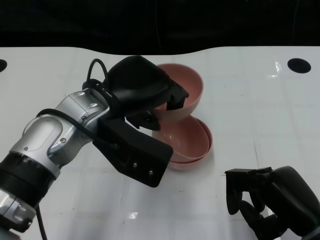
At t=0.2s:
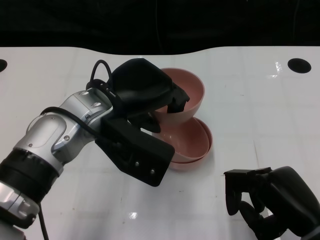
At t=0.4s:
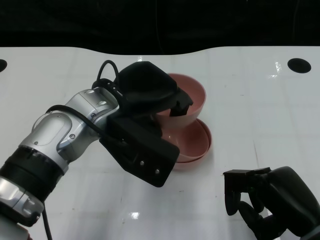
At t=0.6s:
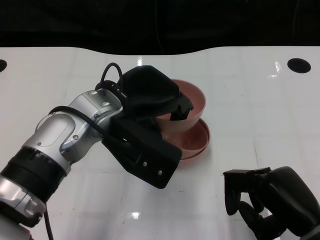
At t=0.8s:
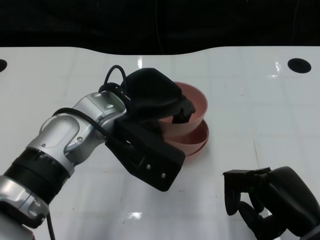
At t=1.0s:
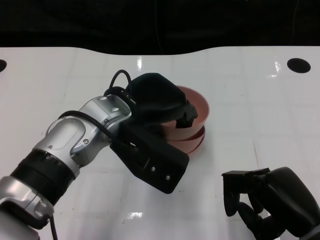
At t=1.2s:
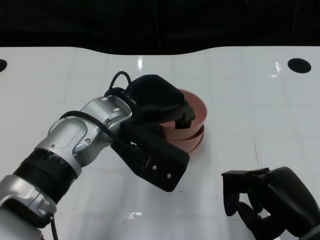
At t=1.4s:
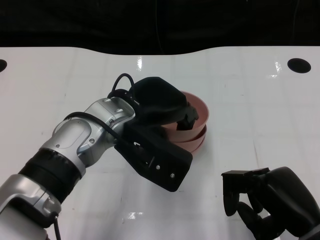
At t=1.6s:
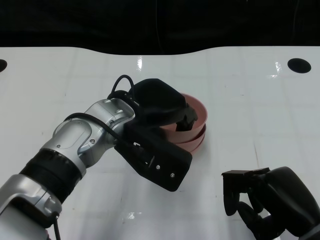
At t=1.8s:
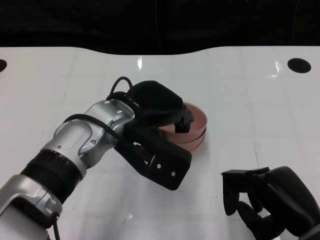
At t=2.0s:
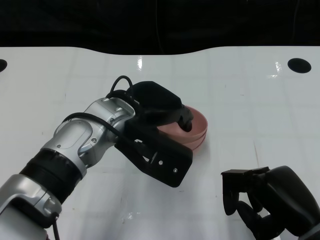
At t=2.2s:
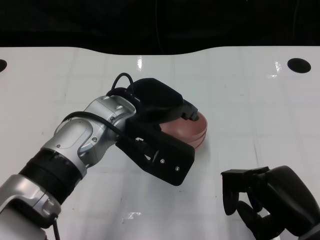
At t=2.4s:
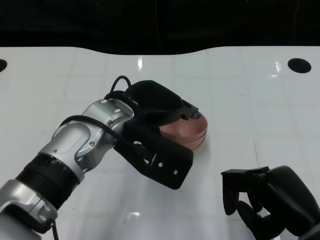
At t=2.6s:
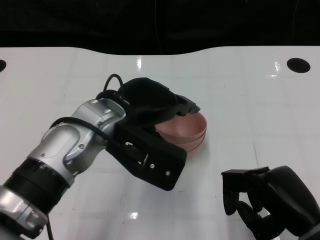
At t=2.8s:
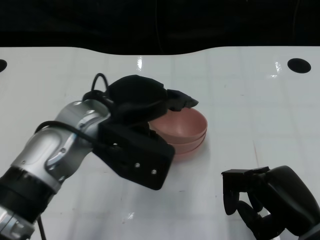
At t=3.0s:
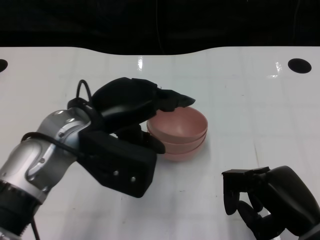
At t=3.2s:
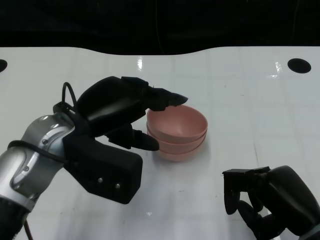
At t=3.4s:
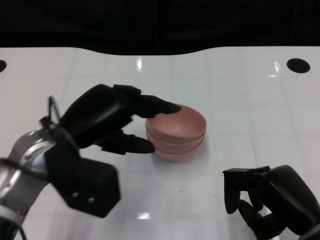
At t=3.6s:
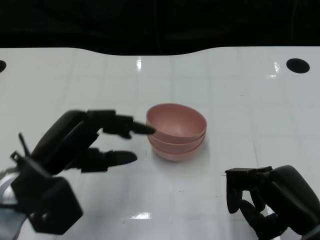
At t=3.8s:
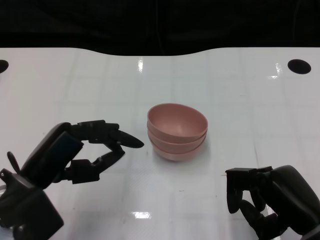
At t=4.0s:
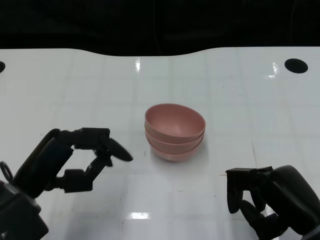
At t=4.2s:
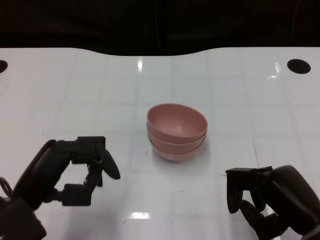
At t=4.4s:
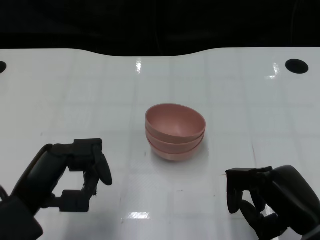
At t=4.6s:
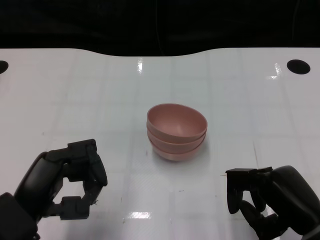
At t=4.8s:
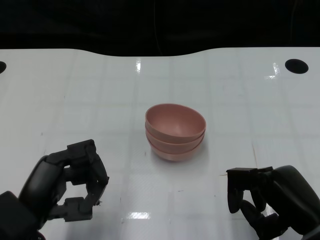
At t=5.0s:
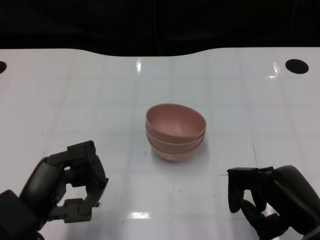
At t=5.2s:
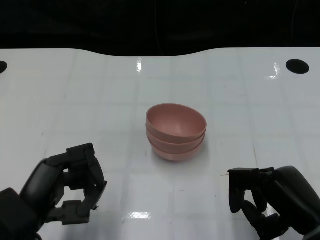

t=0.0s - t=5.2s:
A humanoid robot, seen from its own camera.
Task of the whole recording: Pick up the bowl on one side of the table and place it on top of the middle bowl, then pick up the bowl on the other side of the table and place it on top of the middle bowls.
Step, t=0.0s - t=3.2s: Place the bowl on the left onto the bowl in the middle with left gripper.
t=1.8s - t=3.4s: The left hand shifts some 10 cm to the left.
t=3.4s - t=5.2s: The left hand moves backward, downward and to the left, approximately 15 cm.

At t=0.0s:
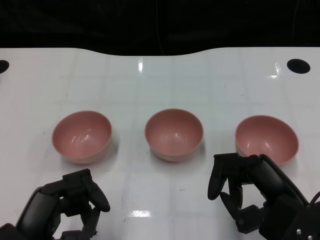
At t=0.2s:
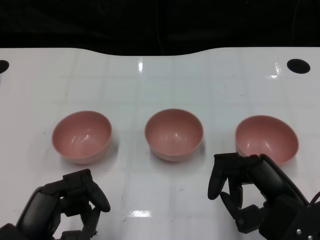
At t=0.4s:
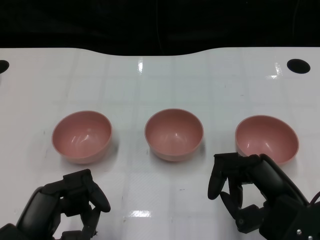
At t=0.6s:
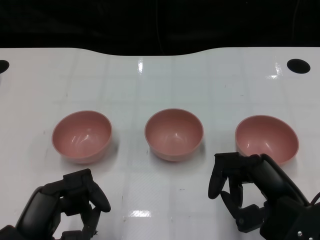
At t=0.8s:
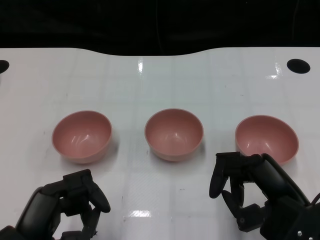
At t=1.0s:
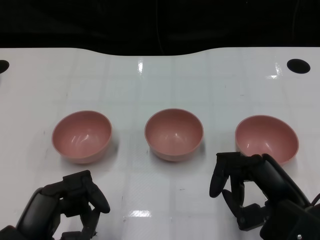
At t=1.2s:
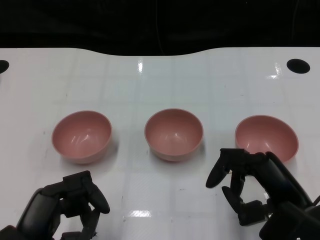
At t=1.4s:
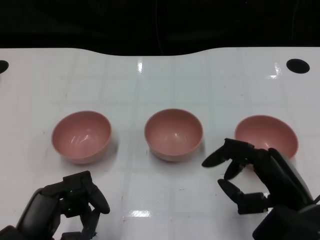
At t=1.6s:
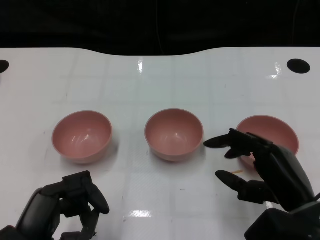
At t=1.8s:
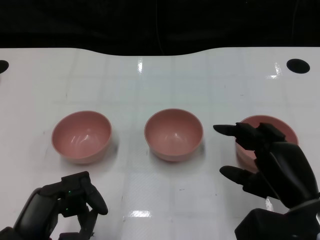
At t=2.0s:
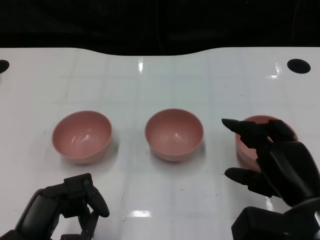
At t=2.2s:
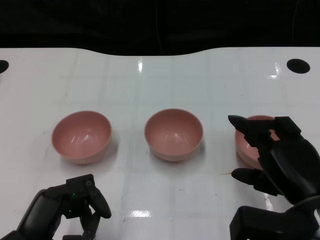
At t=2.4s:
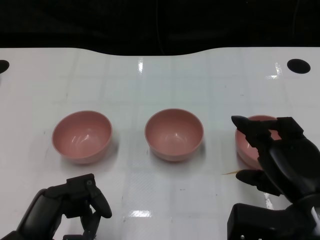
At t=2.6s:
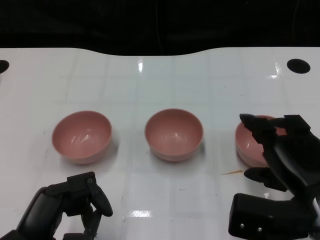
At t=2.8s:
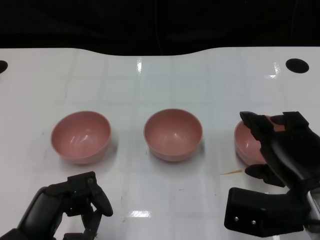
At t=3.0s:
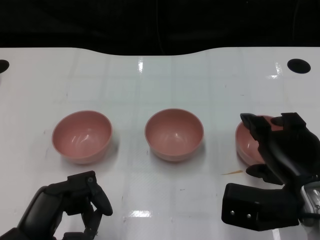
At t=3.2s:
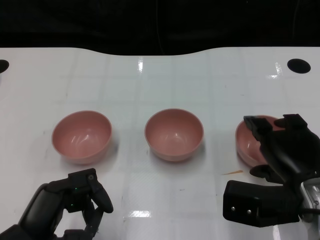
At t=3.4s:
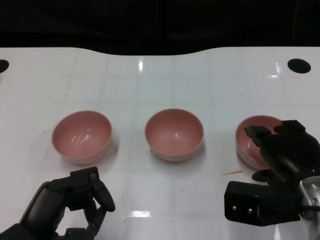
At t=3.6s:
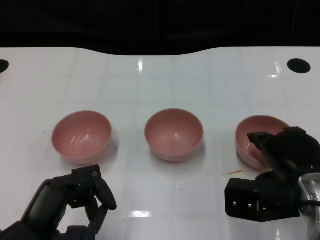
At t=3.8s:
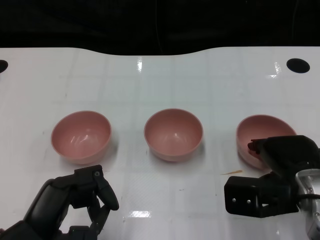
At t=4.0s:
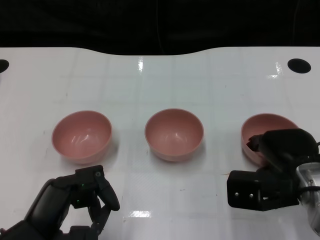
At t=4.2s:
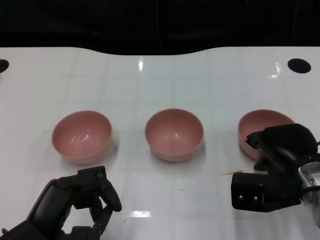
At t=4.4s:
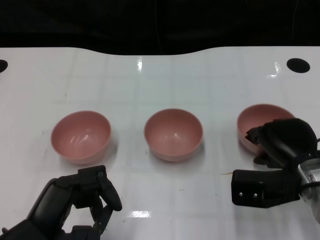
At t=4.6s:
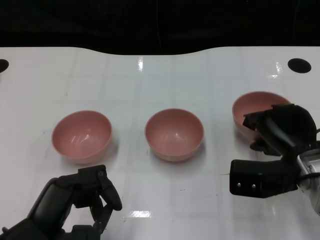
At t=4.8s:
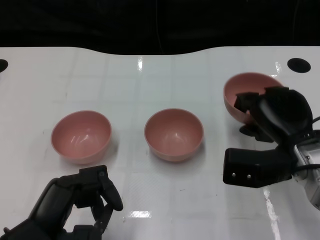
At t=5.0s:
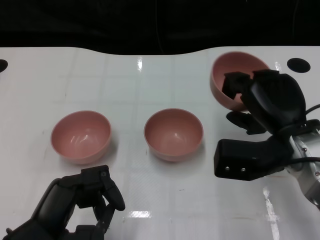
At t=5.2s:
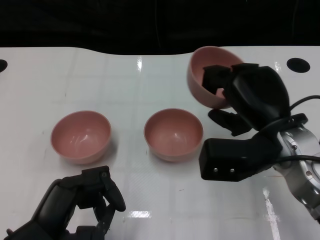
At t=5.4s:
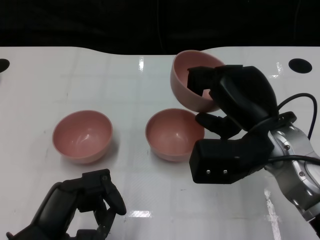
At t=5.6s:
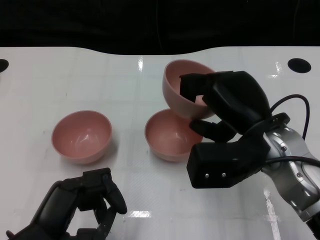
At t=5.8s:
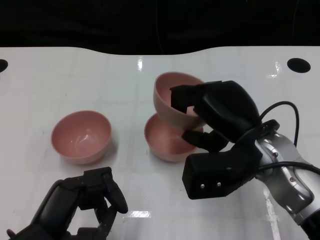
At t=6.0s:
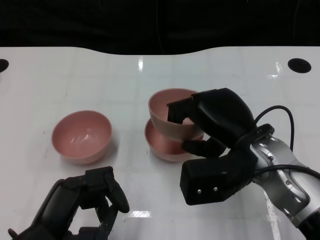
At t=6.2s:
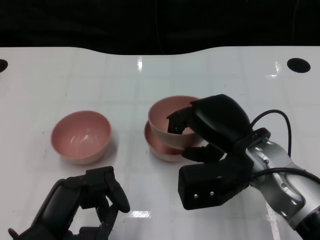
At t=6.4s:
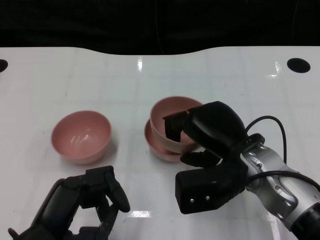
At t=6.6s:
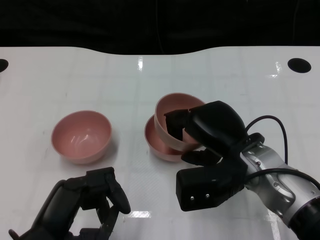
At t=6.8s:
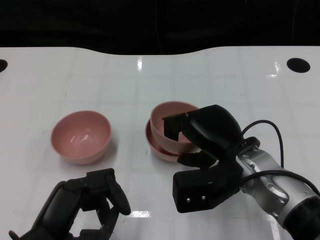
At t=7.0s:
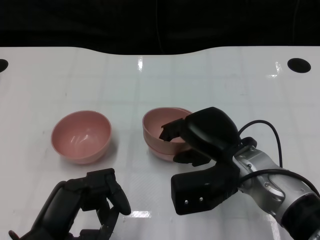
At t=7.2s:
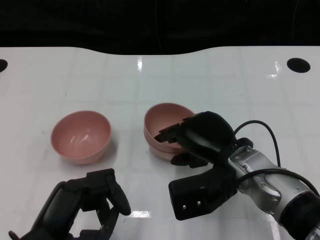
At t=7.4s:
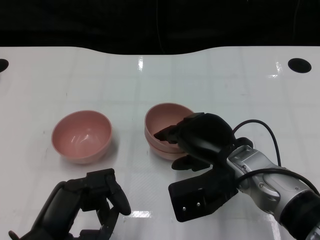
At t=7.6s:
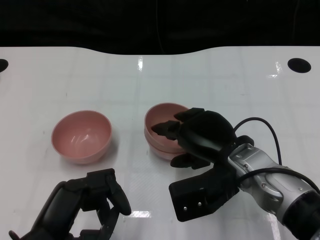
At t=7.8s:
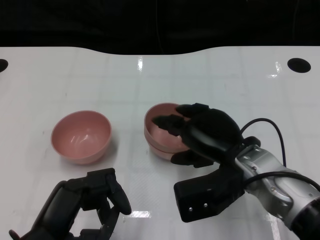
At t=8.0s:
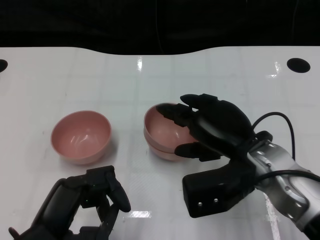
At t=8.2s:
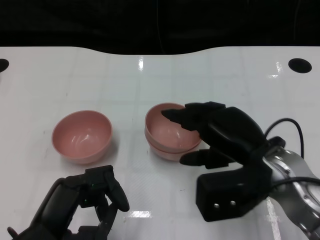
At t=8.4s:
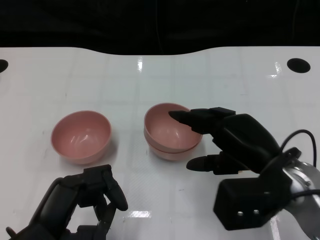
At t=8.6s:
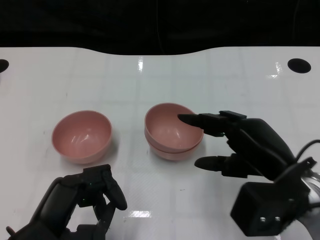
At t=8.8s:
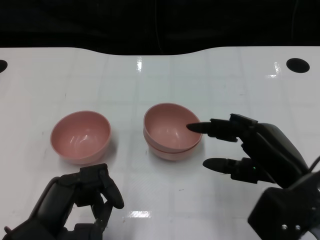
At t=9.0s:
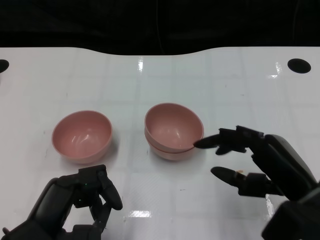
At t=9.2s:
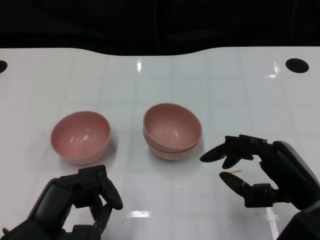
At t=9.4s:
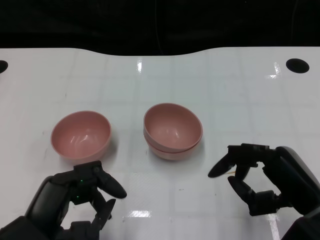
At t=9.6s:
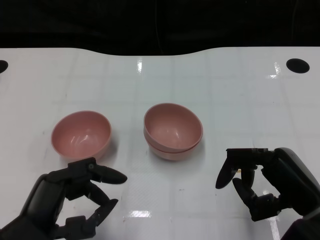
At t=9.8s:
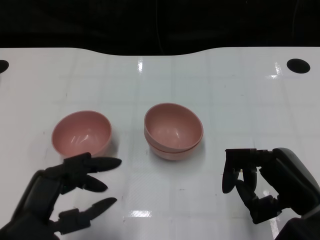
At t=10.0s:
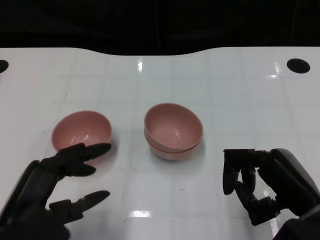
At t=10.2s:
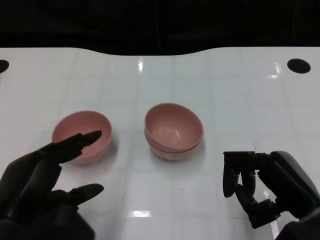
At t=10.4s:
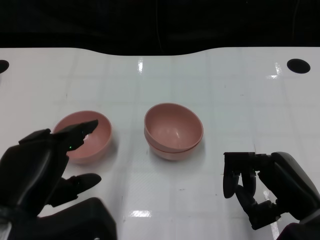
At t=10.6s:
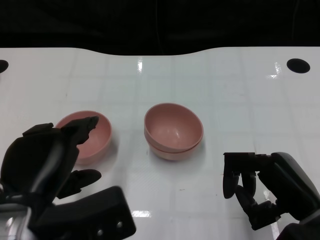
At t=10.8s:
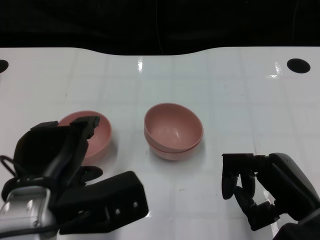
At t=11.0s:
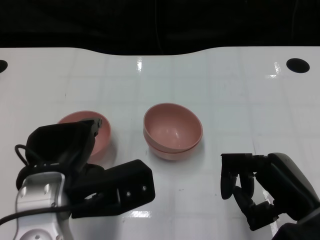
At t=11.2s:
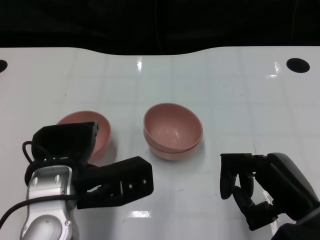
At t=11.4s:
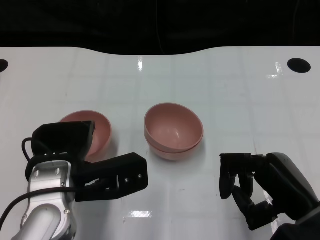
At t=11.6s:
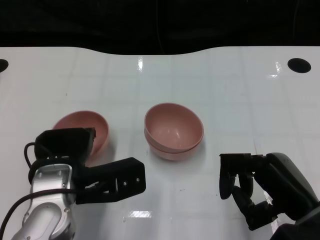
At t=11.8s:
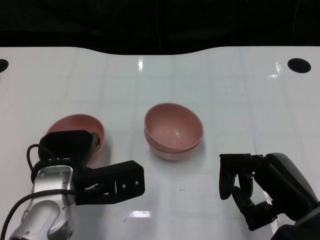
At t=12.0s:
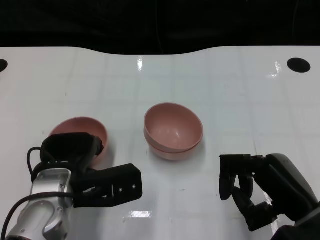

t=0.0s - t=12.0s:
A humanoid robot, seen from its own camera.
Task of the whole recording: Pick up the bowl on one side of the table and place it on top of the middle bowl, then pick up the bowl on the other side of the table and place it on top of the middle bowls.
Step, t=1.0s - t=4.4s: Grasp the bowl on the right with the right gripper.
Step, t=4.6s - t=8.0s: Place the bowl on the right onto the bowl in the middle with right gripper.
t=3.0s - t=4.4s: The right hand is displaced forward by some 5 cm.
t=4.4s - t=6.0s: The right hand heads to the left and upward, covering roughly 10 cm.
t=6.0s - t=7.6s: The hands move only a little.
t=7.6s - t=9.0s: The right hand is displaced to the right and backward by some 10 cm.
t=9.0s - t=10.4s: The left hand shifts roughly 5 cm upward.
t=10.4s - t=12.0s: The left hand moves forward and downward, about 10 cm.

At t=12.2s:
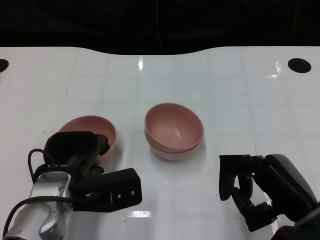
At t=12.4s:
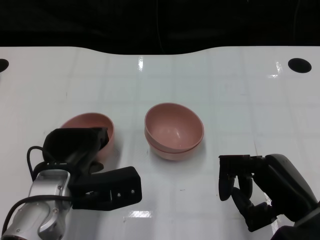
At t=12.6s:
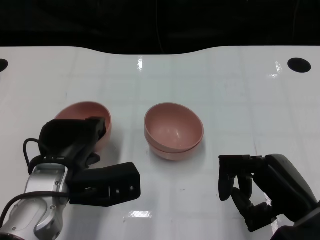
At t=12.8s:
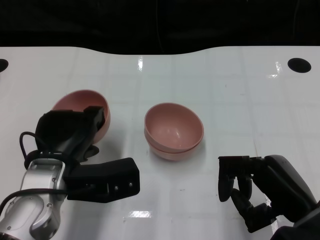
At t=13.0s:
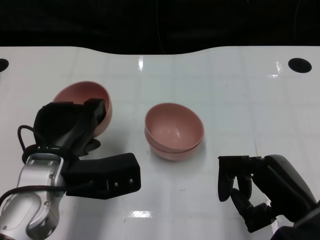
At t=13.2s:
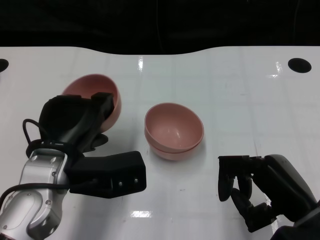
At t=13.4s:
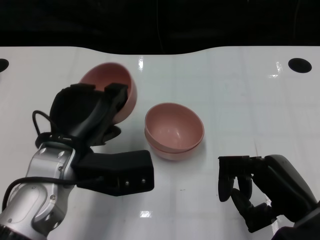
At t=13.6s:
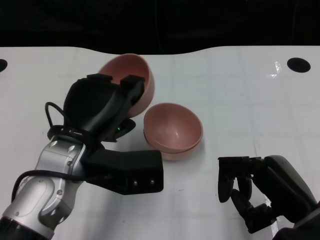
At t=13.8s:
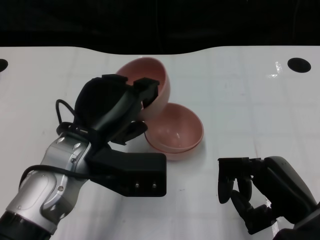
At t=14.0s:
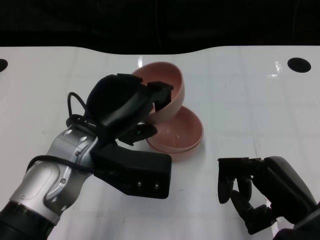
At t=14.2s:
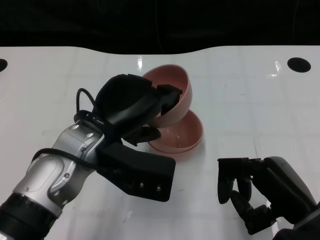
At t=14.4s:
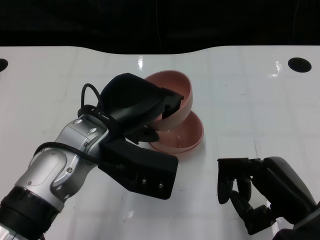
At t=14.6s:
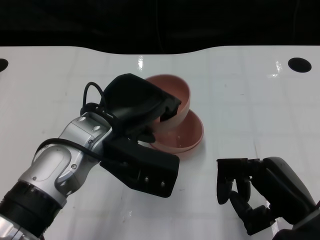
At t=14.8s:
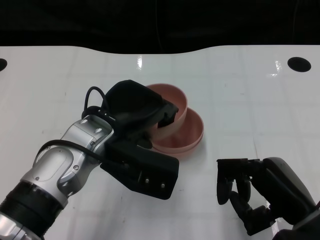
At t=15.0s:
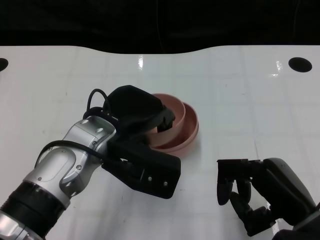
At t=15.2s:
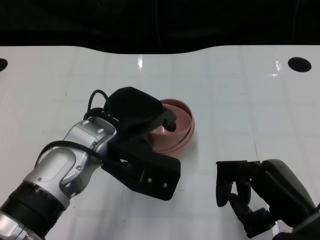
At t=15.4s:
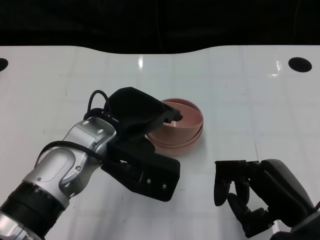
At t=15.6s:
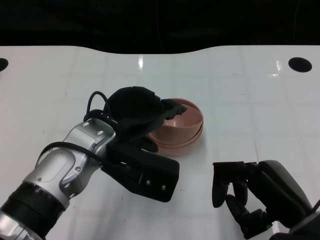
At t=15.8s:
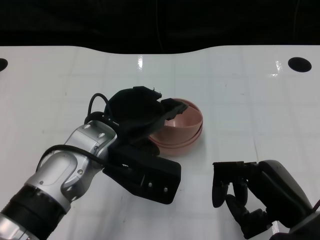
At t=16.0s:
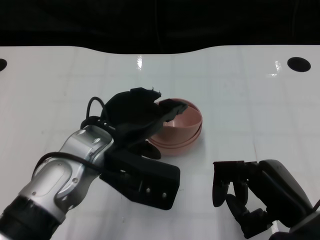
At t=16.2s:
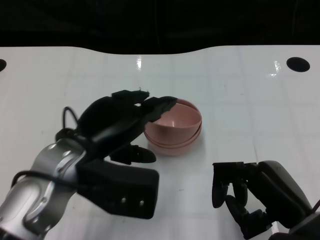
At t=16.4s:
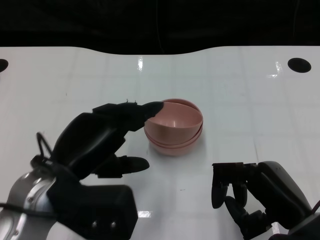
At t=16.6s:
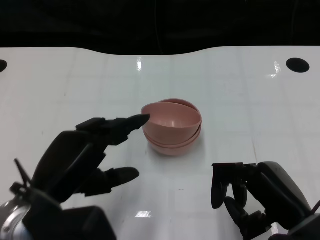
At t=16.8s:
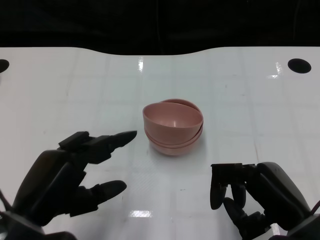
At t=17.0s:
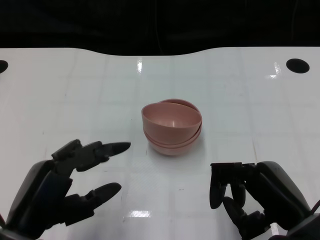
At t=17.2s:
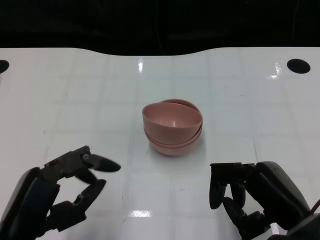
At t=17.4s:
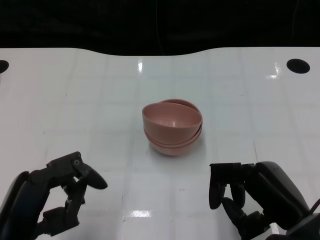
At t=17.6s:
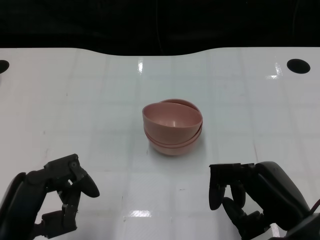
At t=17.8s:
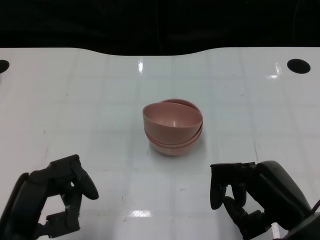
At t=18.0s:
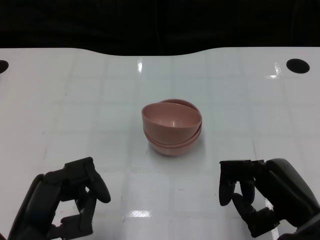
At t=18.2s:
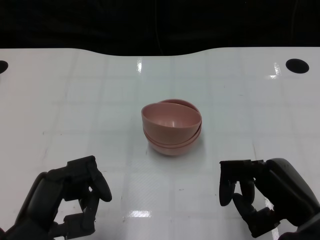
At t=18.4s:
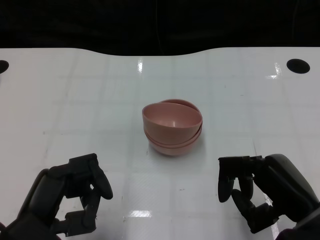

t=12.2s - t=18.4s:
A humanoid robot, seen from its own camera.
Task of the whole recording: Pick up the bowl on one side of the table and place it on top of the middle bowl, then pick up the bowl on the other side of the table and place it on top of the middle bowls.
Step, t=12.4s - t=16.4s: Place the bowl on the left onto the bowl in the middle with left gripper.
t=12.2s - t=13.8s: The left hand moves upward, approximately 10 cm.
t=15.4s - t=16.8s: The left hand shifts roughly 15 cm backward and to the left.
